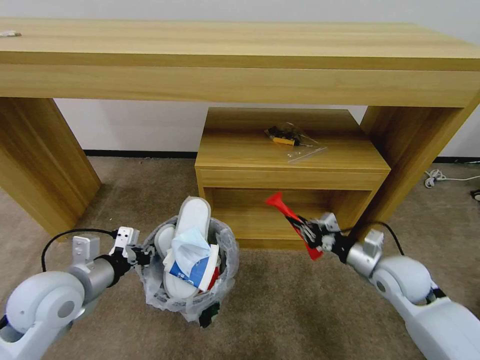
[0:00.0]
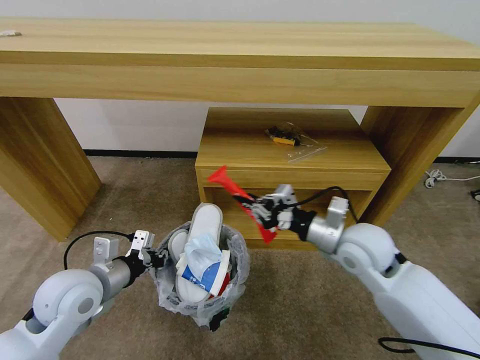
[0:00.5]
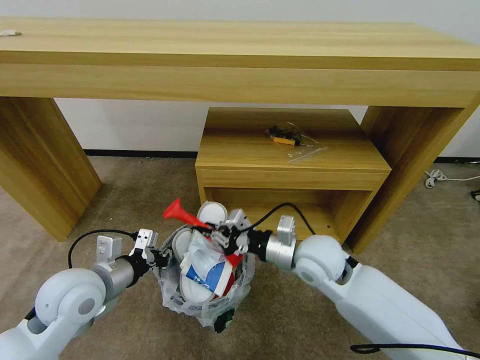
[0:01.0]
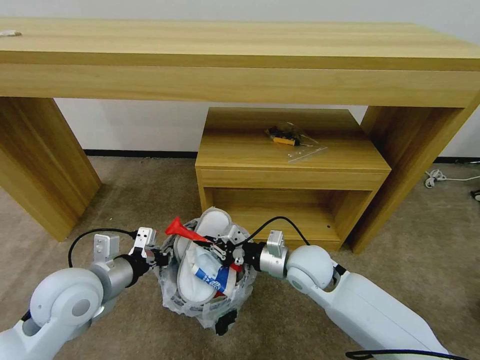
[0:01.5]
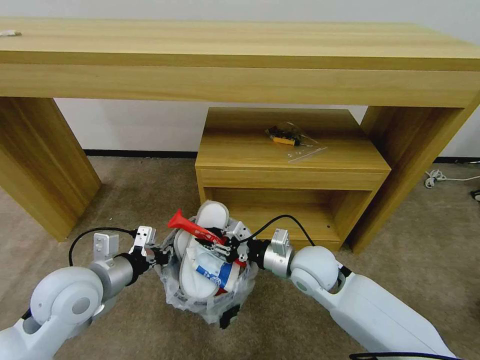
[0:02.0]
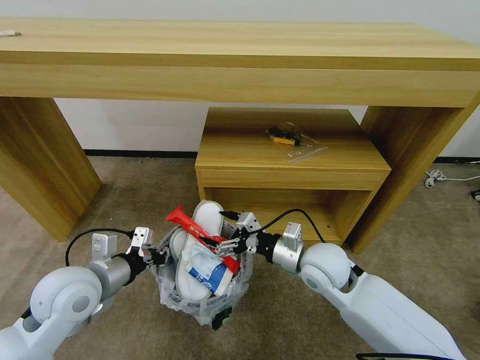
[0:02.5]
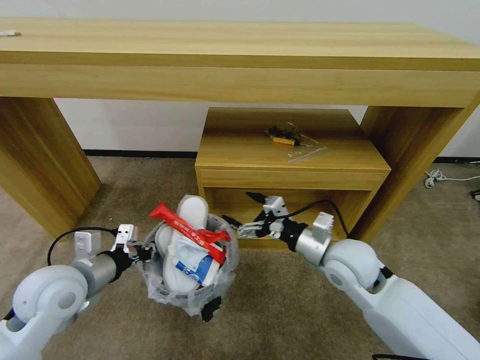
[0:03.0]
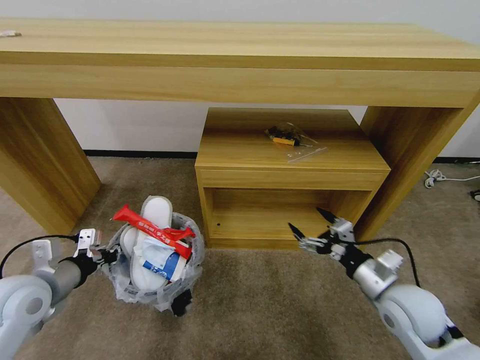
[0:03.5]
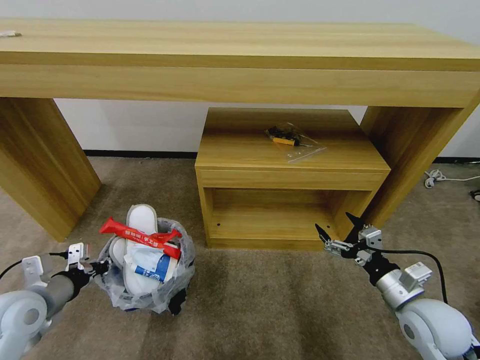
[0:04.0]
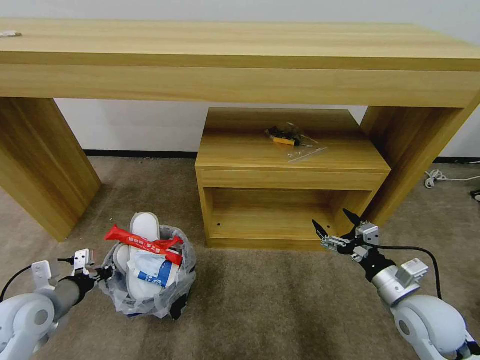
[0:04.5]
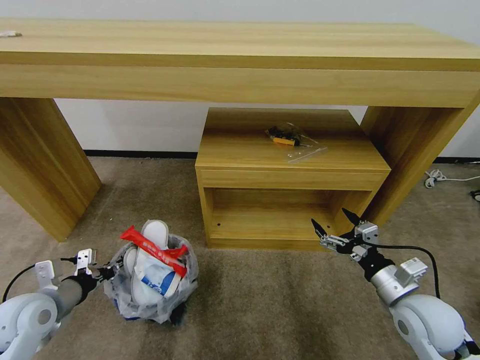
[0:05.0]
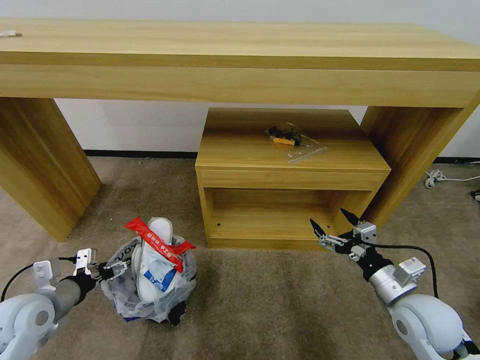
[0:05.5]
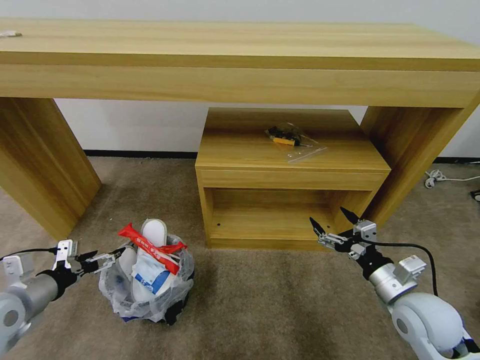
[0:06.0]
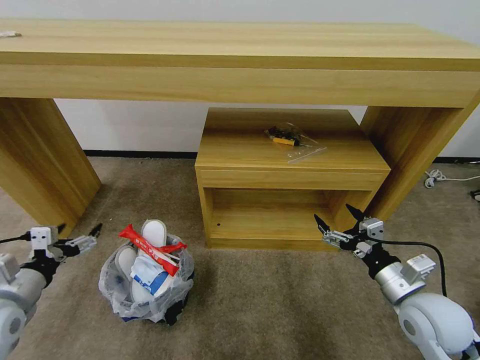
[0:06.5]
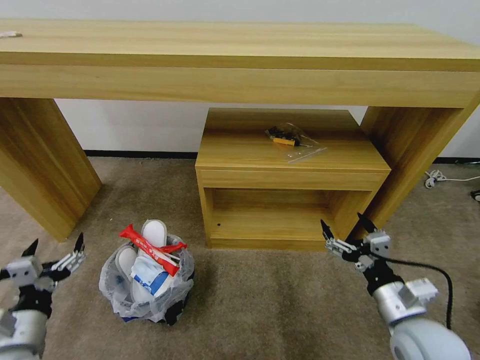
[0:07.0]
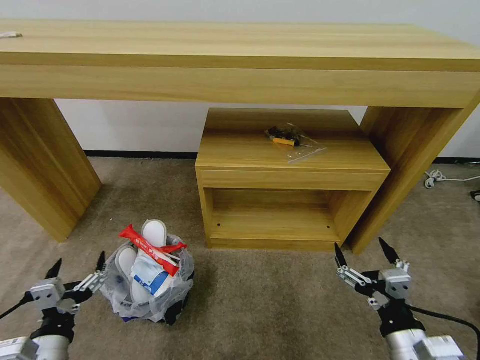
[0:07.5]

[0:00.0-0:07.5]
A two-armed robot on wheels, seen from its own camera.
Task of the whole recording: Pick up the trash bin and place the garbage on the floor into it.
0:00.0 to 0:02.0: The right gripper goes about 20 cm to the left, and opens up.
0:02.0 to 0:04.0: The left gripper is displaced to the left by some 10 cm. Meanwhile the right gripper moves to the right and backward, approximately 25 cm, and opens.
0:04.0 to 0:05.5: The left gripper opens.
0:05.5 to 0:07.5: The right gripper goes approximately 15 cm backward and to the left. Meanwhile the left gripper is displaced backward and to the right by approximately 15 cm.
